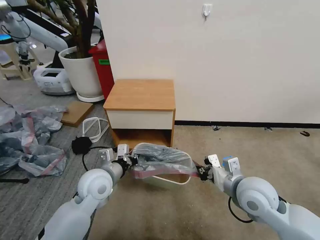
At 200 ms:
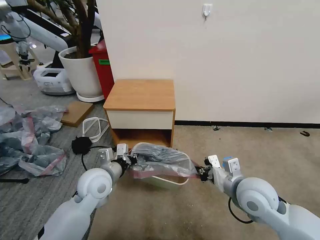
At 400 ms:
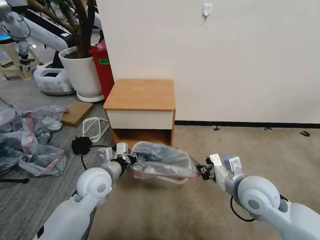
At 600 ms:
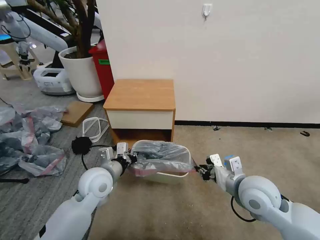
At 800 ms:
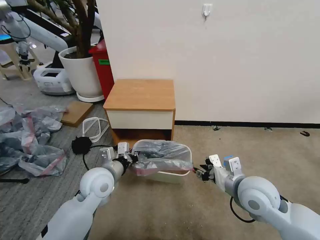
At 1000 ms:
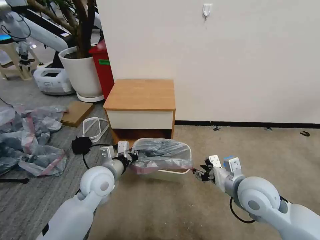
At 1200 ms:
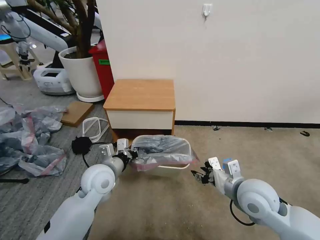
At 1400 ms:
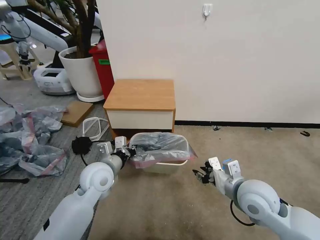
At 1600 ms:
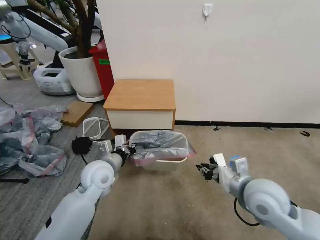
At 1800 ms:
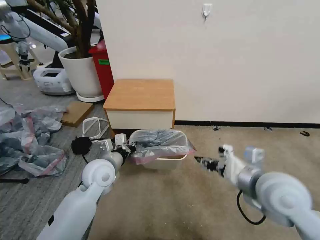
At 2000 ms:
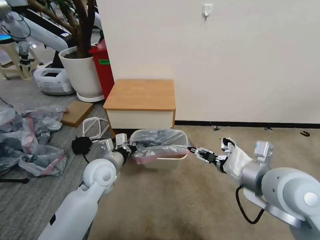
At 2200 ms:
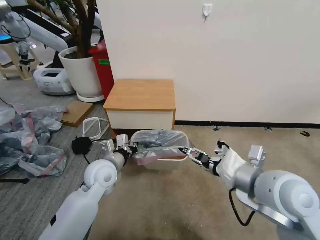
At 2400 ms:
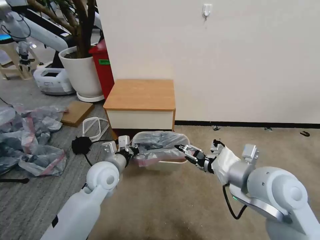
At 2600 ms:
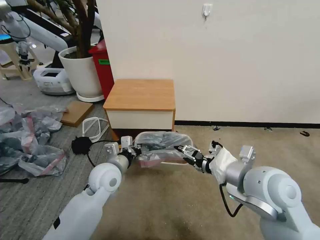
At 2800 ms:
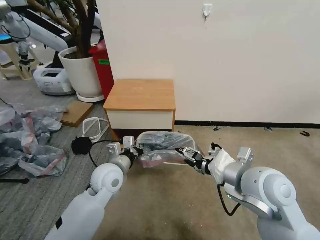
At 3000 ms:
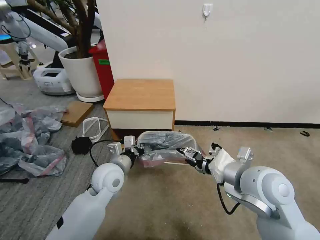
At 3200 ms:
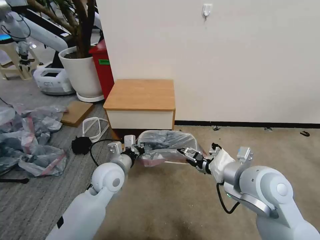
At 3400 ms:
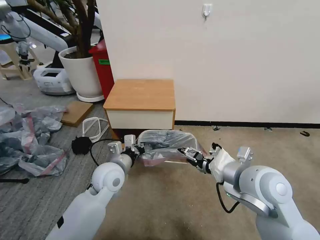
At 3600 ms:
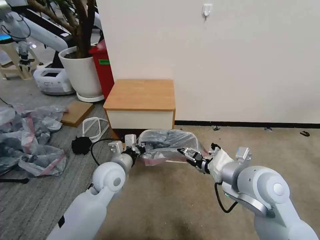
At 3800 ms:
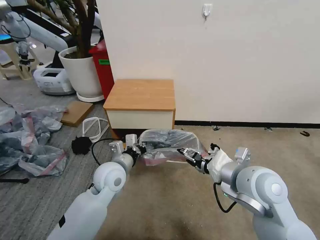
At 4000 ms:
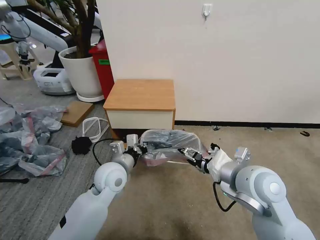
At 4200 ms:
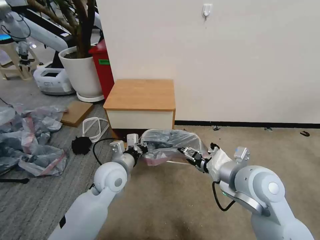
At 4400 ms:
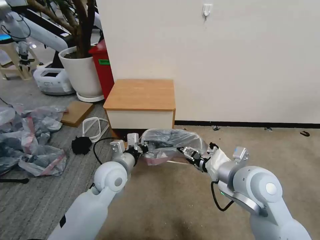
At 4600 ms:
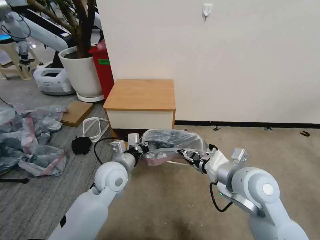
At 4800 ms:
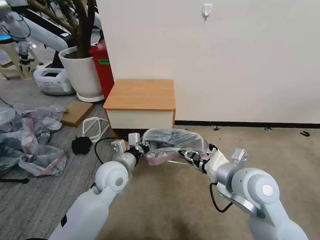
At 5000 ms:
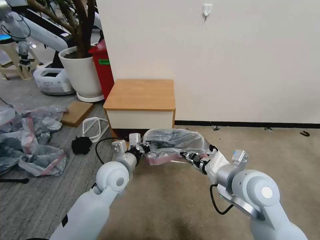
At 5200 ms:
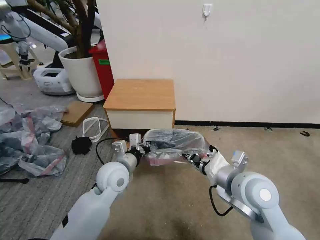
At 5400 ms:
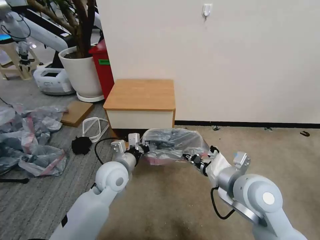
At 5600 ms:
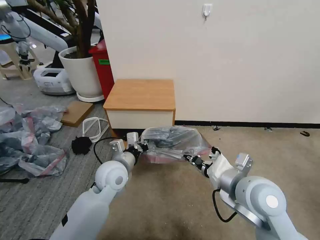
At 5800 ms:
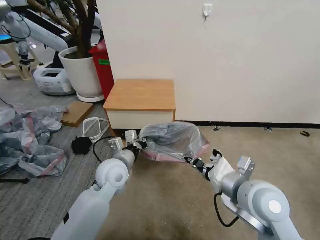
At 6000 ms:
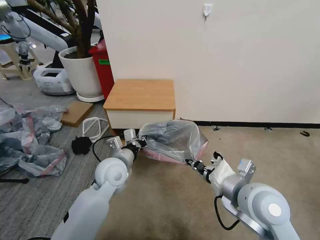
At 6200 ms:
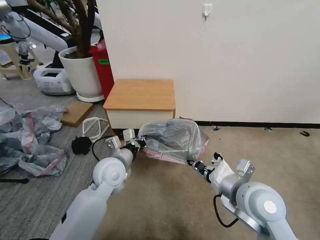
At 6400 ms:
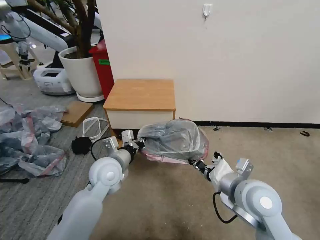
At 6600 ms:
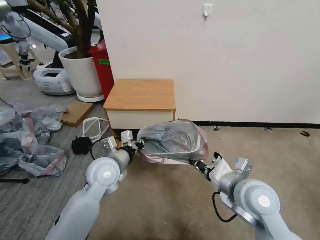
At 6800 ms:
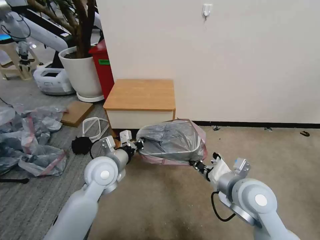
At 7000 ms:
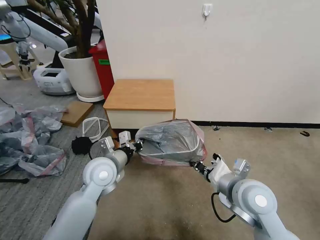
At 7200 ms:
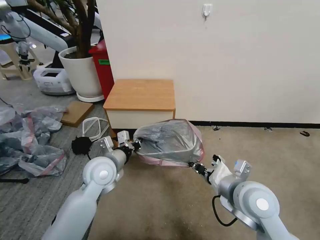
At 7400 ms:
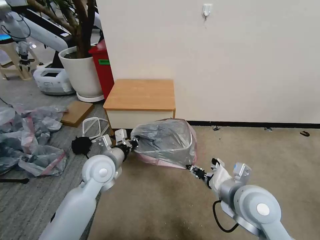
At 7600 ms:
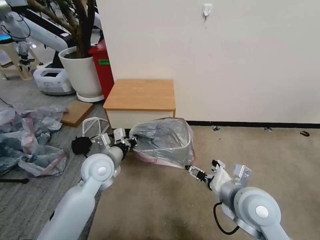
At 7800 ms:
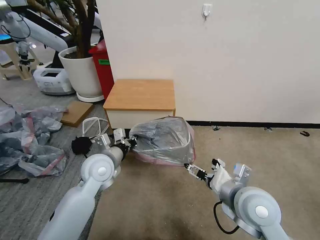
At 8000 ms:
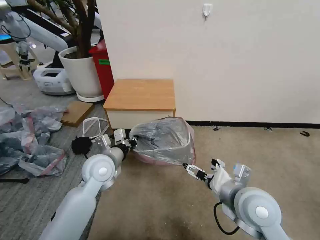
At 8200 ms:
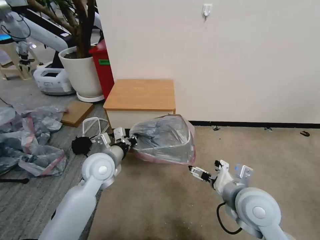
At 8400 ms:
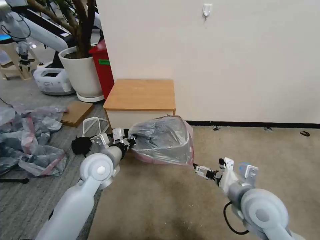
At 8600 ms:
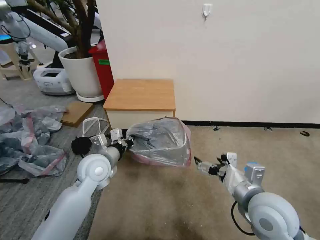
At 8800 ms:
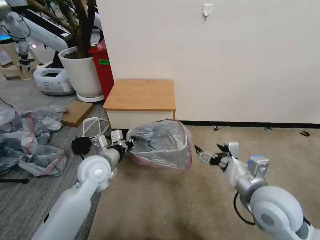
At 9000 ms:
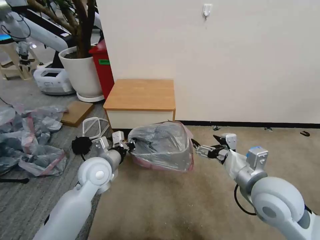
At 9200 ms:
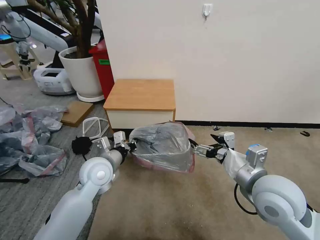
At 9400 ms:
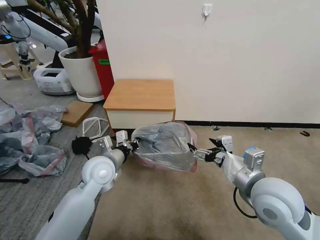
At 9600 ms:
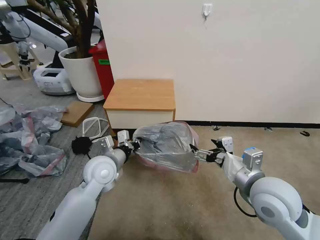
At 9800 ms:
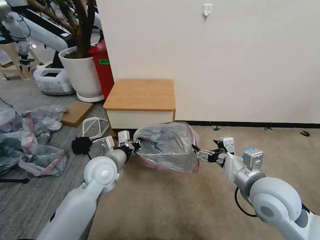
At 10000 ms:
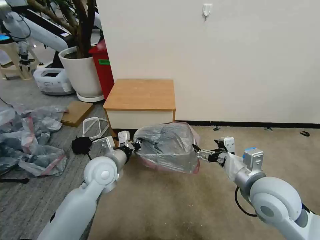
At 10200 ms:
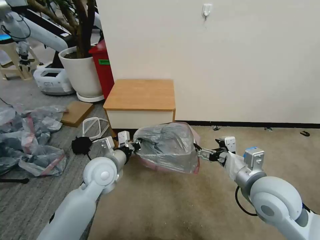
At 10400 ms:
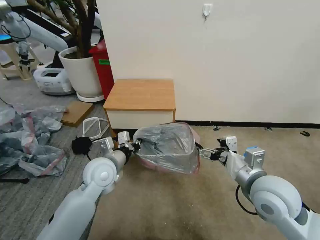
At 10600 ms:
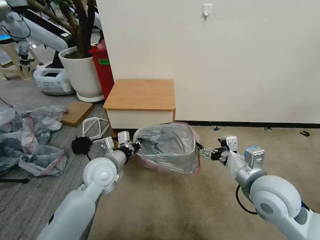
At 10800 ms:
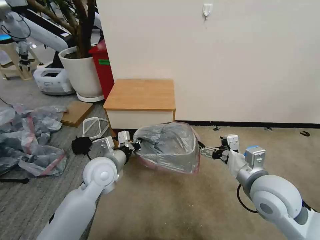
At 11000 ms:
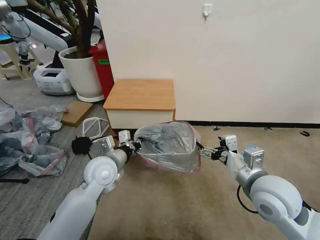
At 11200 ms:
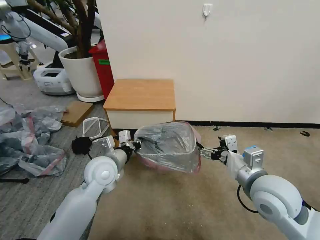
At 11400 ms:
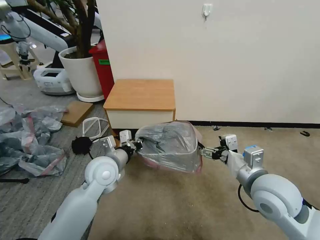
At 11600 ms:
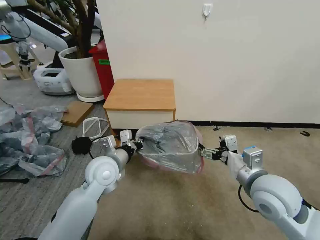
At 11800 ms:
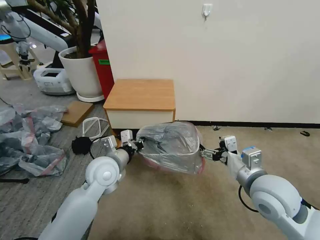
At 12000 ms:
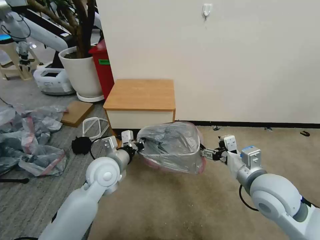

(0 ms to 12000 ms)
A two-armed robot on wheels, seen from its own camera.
Task of the whole recording: Pick up the garbage bag from the table and place it over the trash can.
0 ms - 1600 ms: The grippers stay close to where they were, moving slightly.
1600 ms - 3000 ms: The right gripper travels upward by roughly 5 cm, and opens.
3000 ms - 4400 ms: The grippers move only a little.
4400 ms - 6000 ms: The right gripper closes its fingers.
6000 ms - 7600 ms: The right gripper opens its fingers.
7600 ms - 9000 ms: The right gripper shifts by approximately 5 cm.
9000 ms - 12000 ms: There are only small adjustments of the grippers.

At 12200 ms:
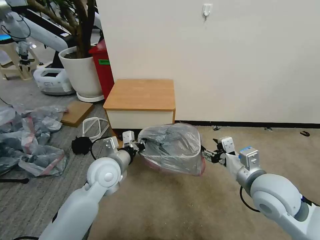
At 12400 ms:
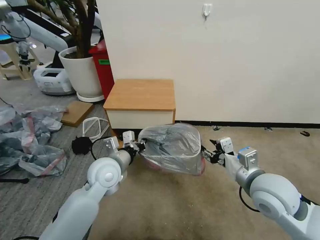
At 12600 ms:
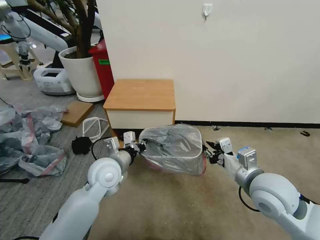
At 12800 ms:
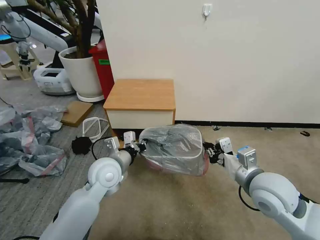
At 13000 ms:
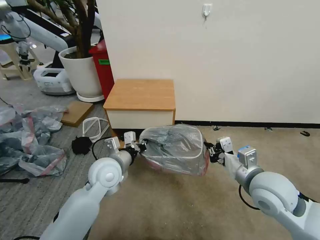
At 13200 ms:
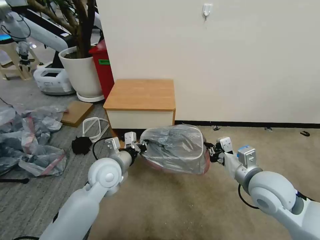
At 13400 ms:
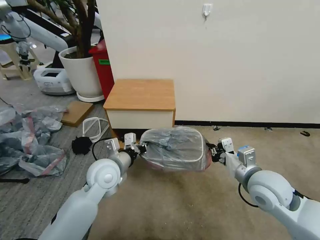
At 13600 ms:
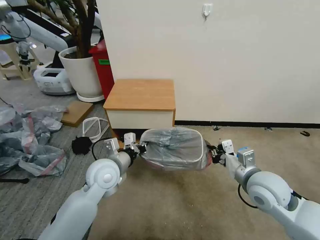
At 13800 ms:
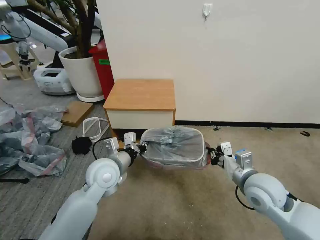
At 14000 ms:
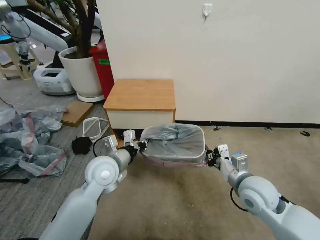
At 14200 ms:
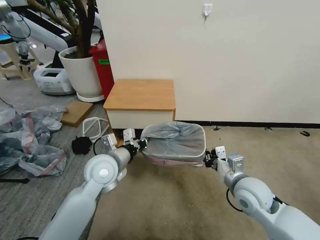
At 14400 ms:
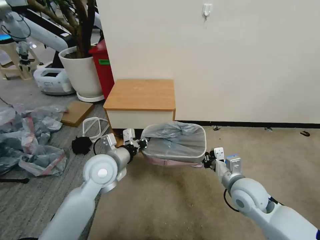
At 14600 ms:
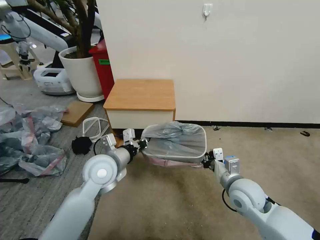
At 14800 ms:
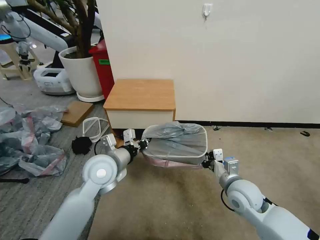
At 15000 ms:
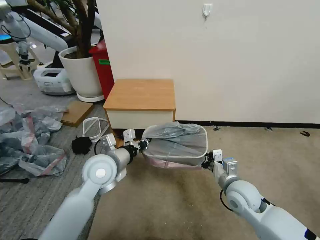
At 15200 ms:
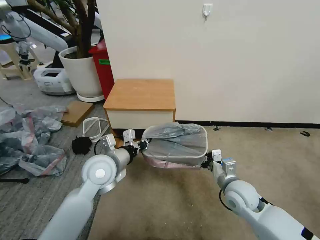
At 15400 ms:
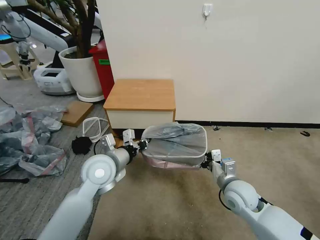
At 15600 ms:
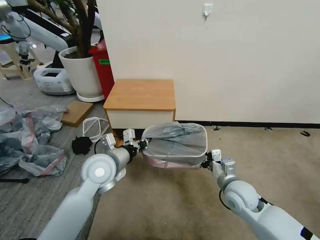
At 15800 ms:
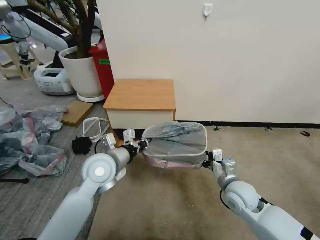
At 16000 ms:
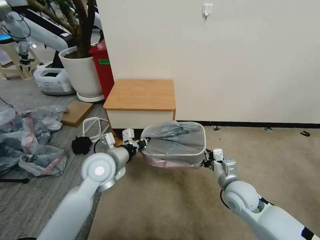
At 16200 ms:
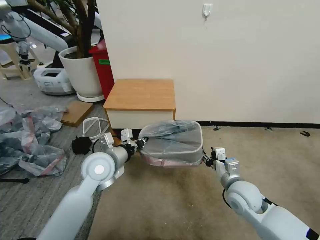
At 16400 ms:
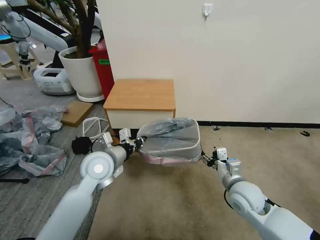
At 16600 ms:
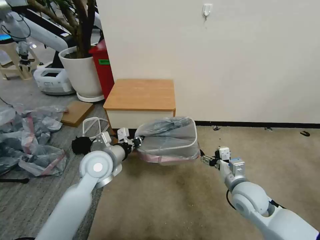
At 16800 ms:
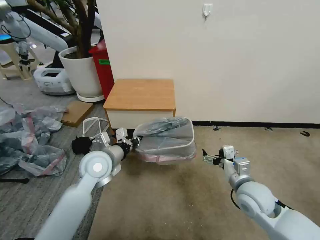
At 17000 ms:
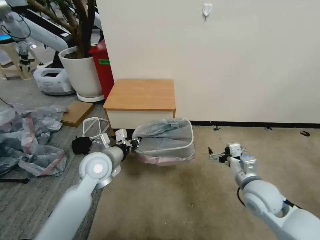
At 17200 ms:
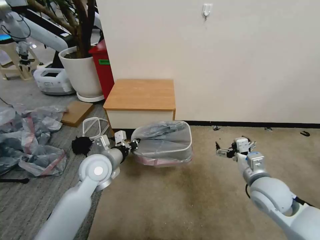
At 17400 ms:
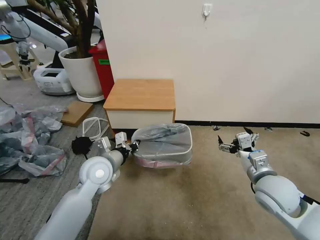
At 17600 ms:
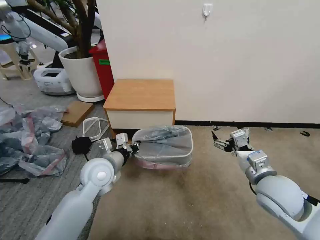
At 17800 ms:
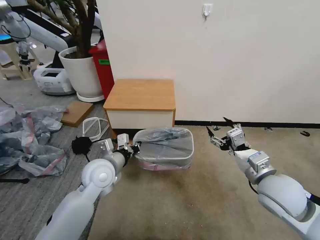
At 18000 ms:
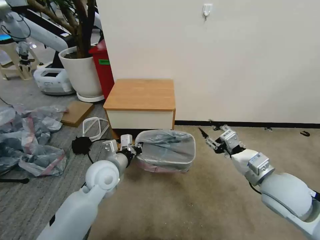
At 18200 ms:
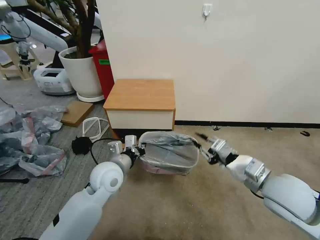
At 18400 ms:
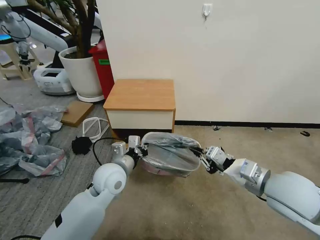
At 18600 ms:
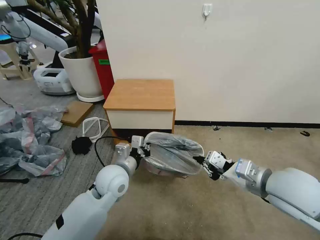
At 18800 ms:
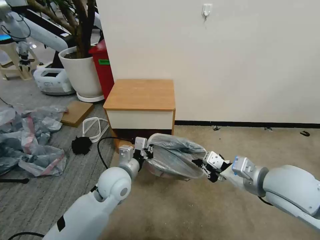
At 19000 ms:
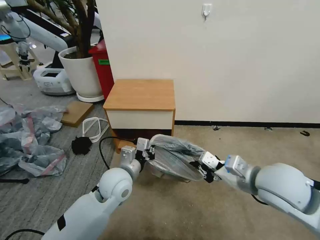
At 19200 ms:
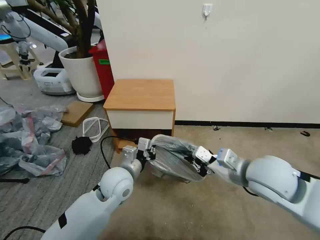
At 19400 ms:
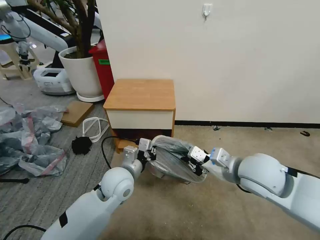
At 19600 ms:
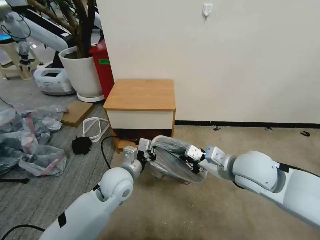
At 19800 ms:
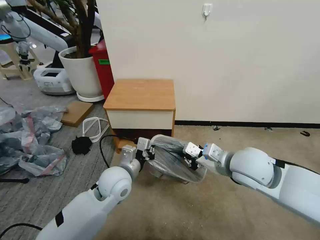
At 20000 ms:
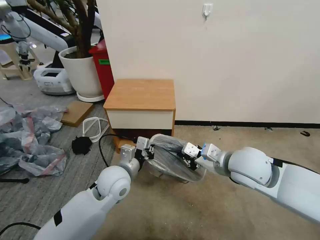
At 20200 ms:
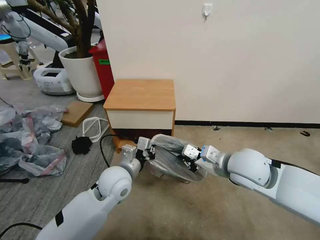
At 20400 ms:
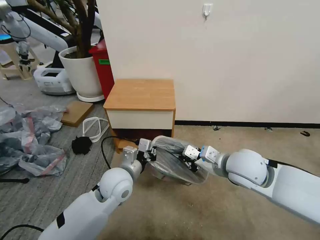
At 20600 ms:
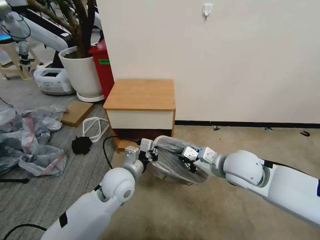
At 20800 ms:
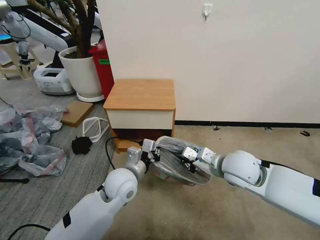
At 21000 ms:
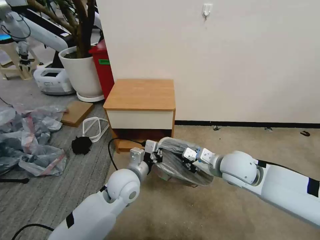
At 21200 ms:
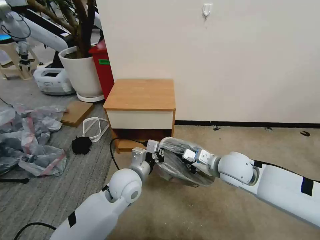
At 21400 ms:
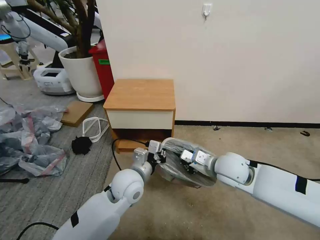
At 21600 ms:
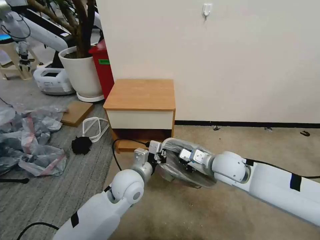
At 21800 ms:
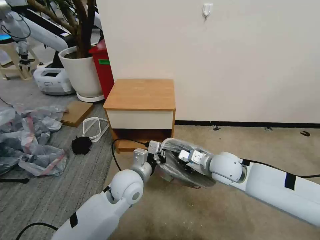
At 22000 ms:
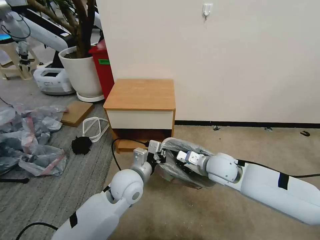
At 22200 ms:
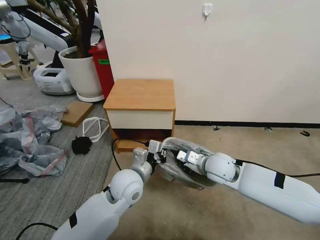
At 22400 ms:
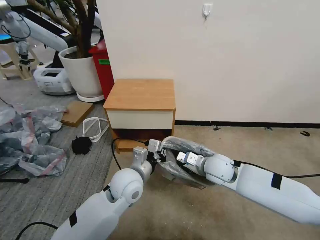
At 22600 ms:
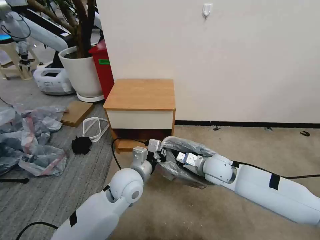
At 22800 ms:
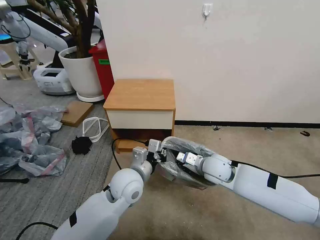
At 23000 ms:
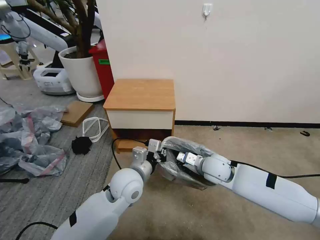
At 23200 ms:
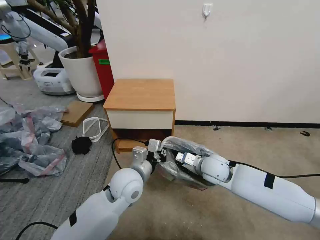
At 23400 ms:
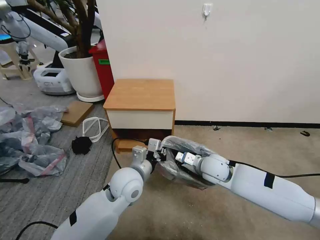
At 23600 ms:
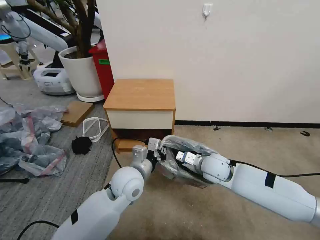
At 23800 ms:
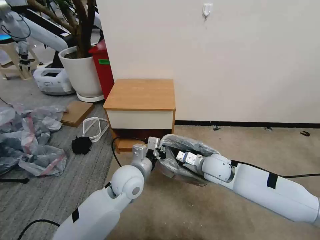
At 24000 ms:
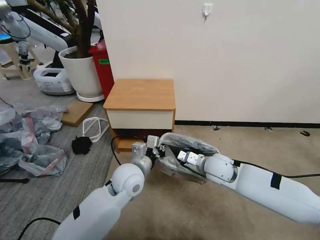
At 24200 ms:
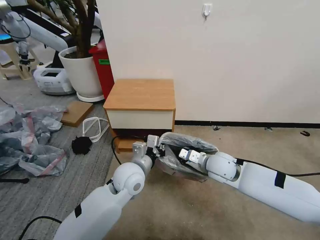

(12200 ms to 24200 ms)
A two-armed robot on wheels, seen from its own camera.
Task of the whole recording: Pick up the garbage bag from the table and place it over the trash can.
12200 ms - 13800 ms: The right gripper shifts approximately 5 cm downward, and closes up.
13800 ms - 15200 ms: The right gripper is displaced downward by about 10 cm.
15200 ms - 16600 ms: The right gripper opens.
16600 ms - 18200 ms: The right gripper shifts roughly 10 cm upward, and closes up.
18200 ms - 19800 ms: The right gripper goes approximately 10 cm to the left and forward.
19800 ms - 21200 ms: The right gripper goes approximately 5 cm downward.
21200 ms - 22600 ms: The right gripper is displaced downward by some 5 cm.
22600 ms - 24200 ms: There are only small adjustments of the grippers.
